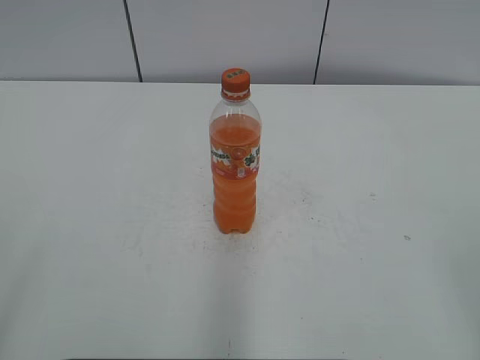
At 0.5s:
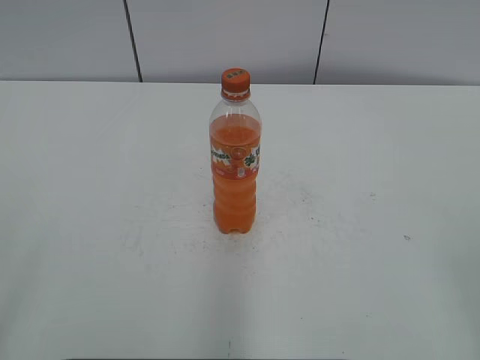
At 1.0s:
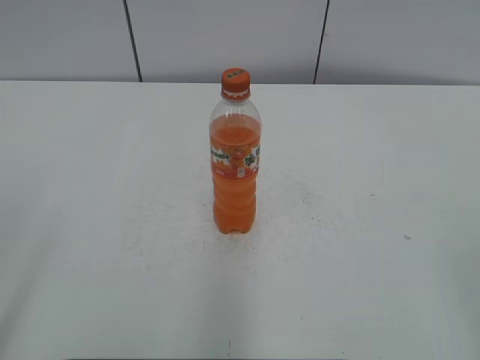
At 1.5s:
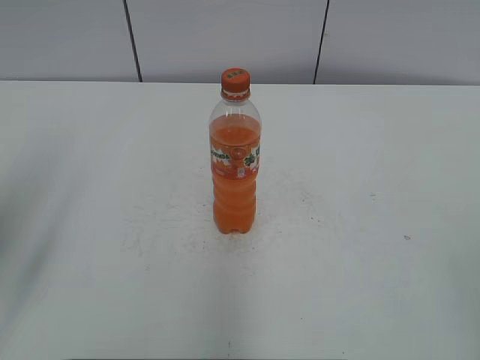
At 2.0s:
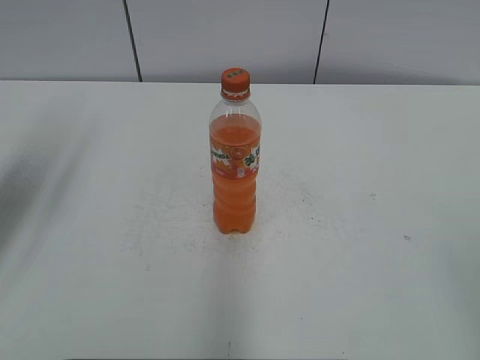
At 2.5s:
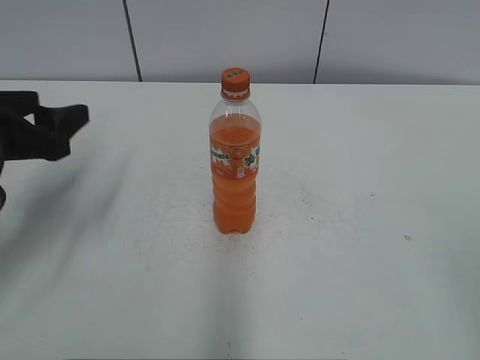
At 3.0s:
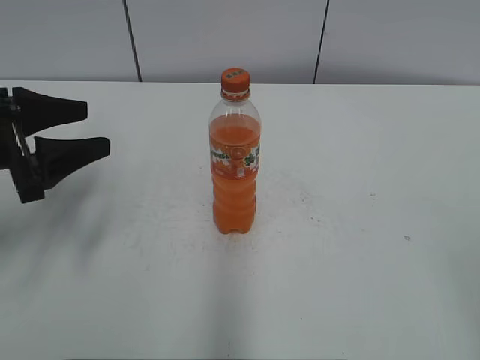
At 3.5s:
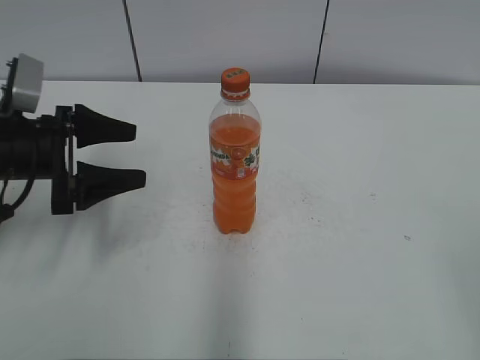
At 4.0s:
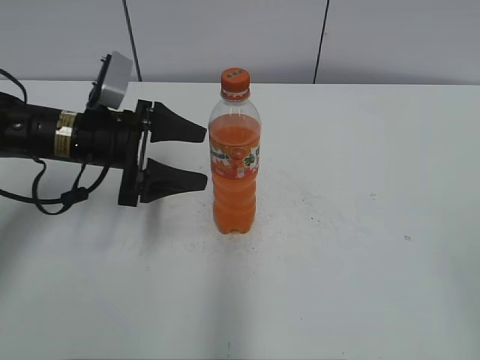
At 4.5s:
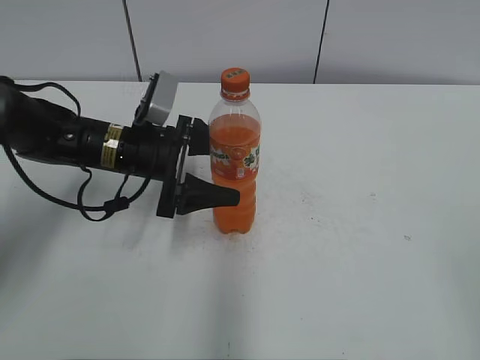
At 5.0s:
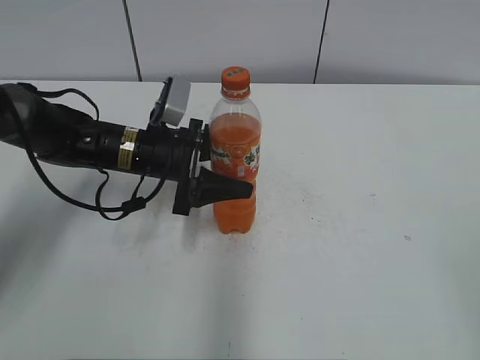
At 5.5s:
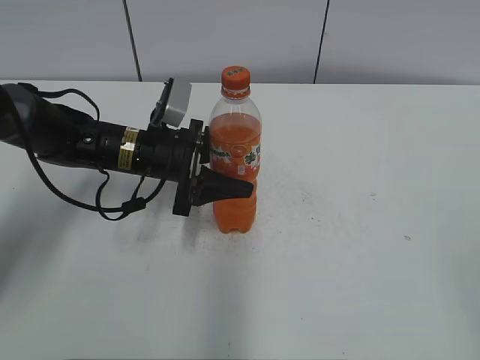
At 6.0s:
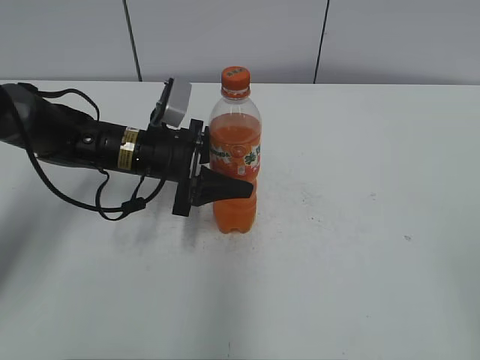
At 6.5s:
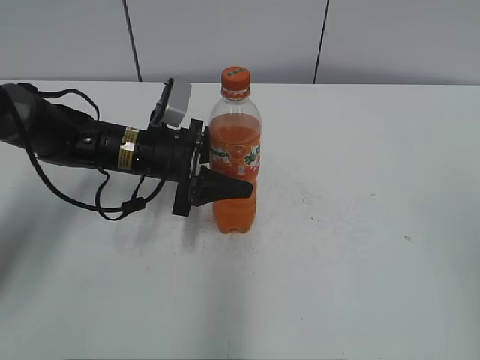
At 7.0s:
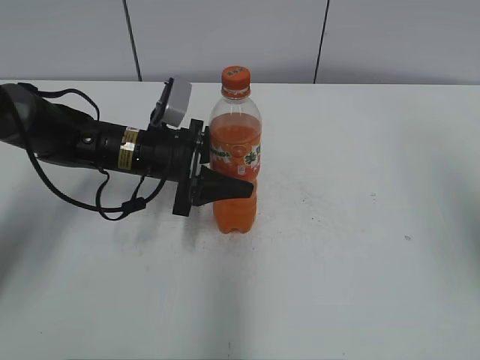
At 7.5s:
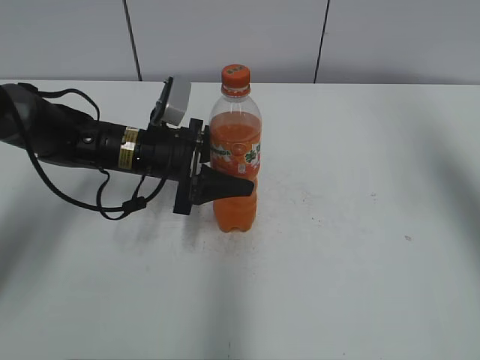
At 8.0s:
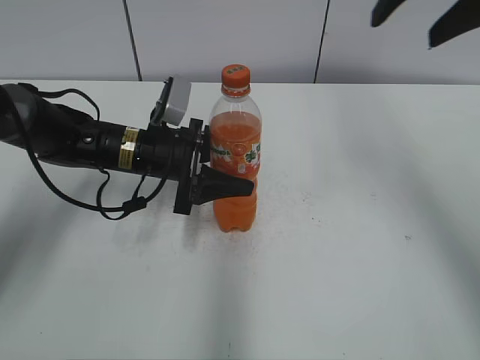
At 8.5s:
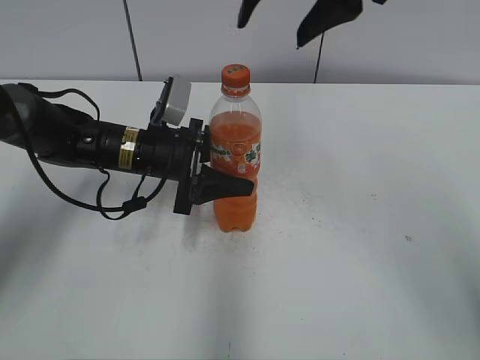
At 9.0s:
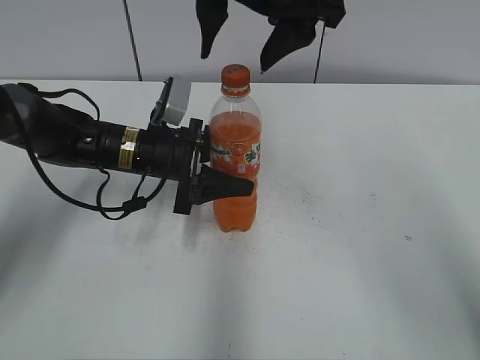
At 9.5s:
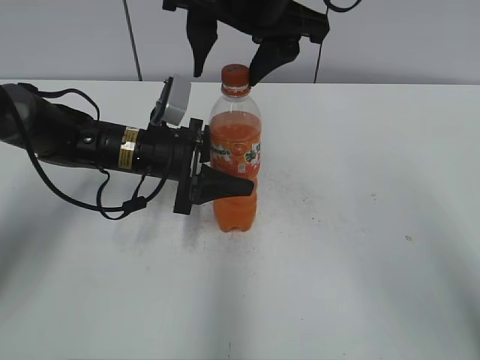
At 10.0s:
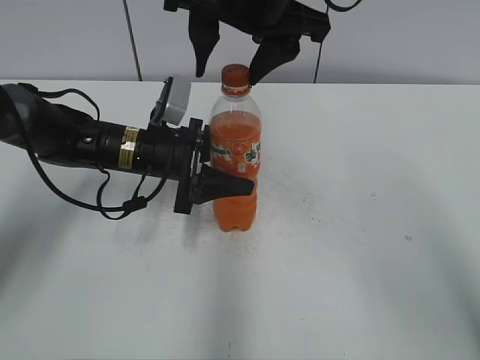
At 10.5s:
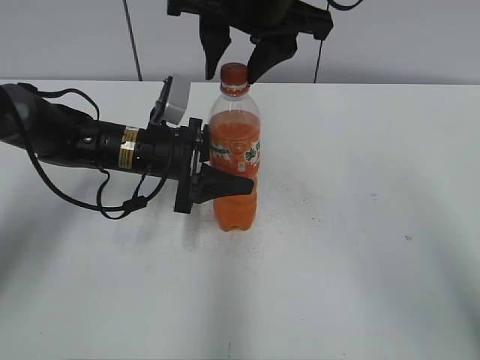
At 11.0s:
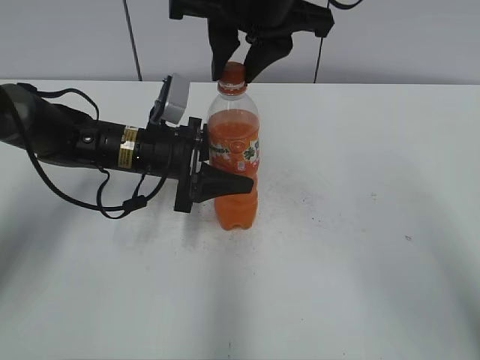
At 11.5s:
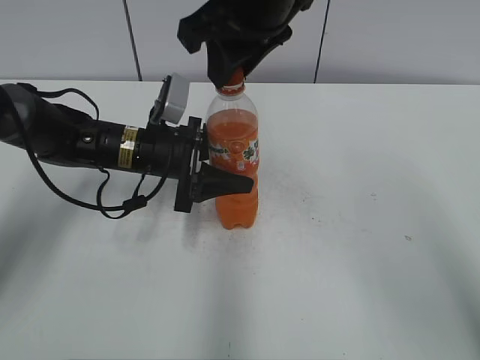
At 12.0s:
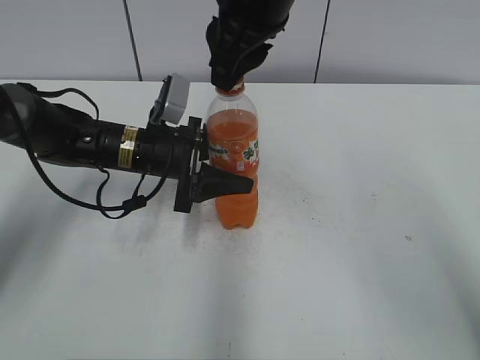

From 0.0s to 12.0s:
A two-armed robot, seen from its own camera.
Step, from 0.0s to 5.0s: Grab the Mirinda with the left hand.
From 2.0s to 4.0s: The left gripper shifts approximately 20 cm downward, to the right and forward, and opens.
From 4.0s to 6.0s: The left gripper moves to the right, roughly 5 cm, and closes.
From 6.0s to 8.0s: The right gripper shifts about 30 cm forward.
From 8.0s to 10.0s: The right gripper heads to the left, covering some 20 cm.
From 10.0s to 12.0s: The right gripper closes.

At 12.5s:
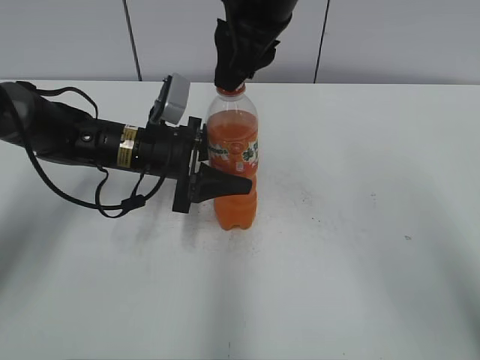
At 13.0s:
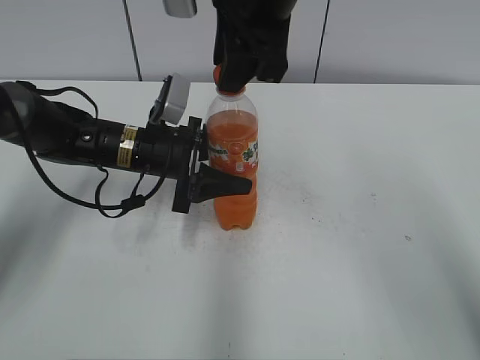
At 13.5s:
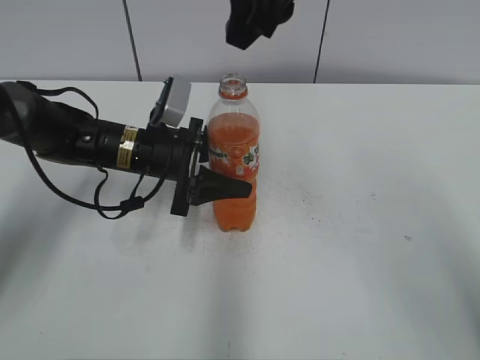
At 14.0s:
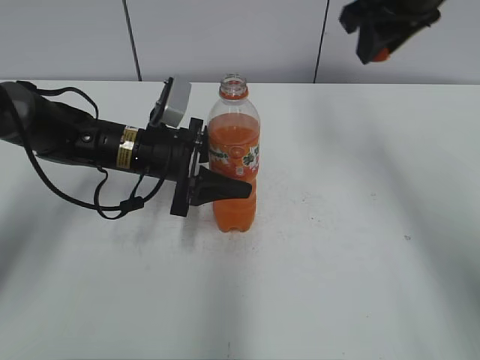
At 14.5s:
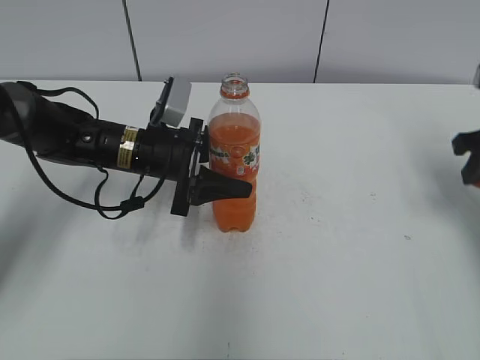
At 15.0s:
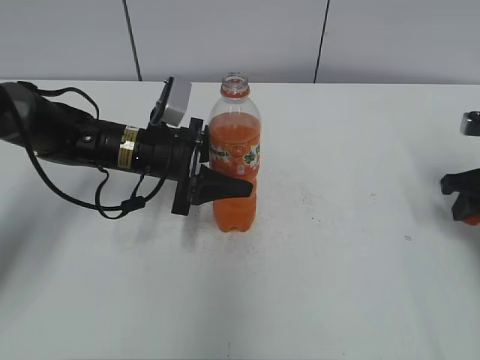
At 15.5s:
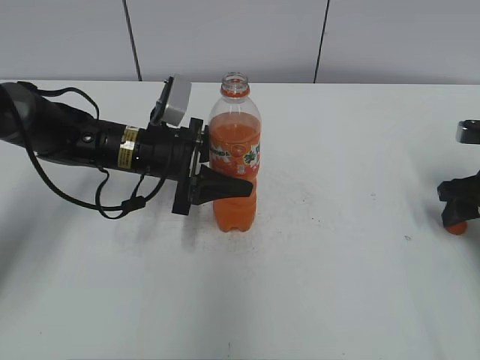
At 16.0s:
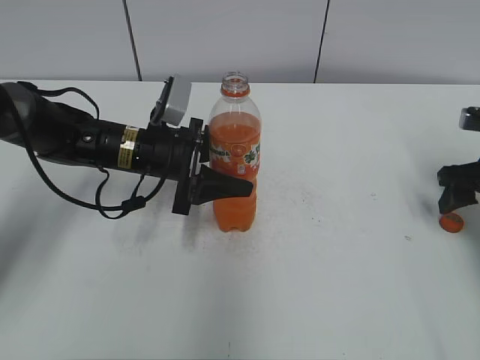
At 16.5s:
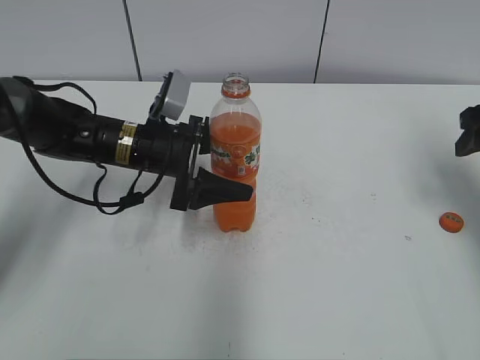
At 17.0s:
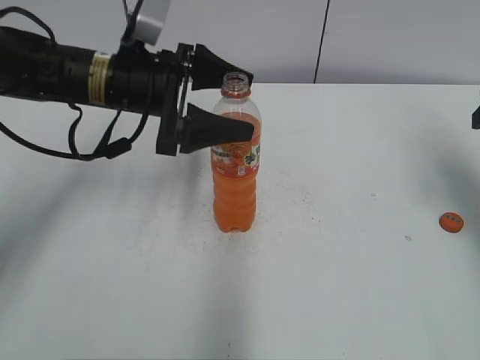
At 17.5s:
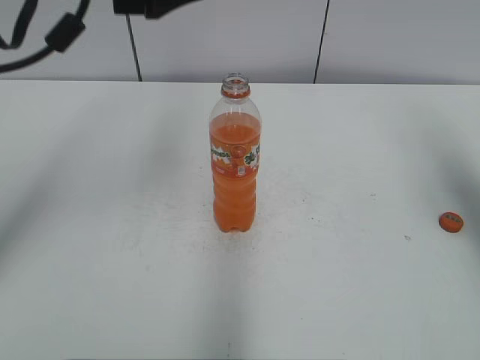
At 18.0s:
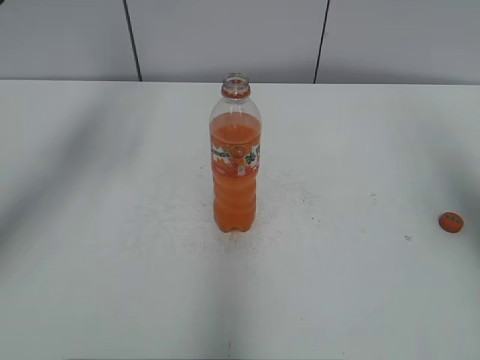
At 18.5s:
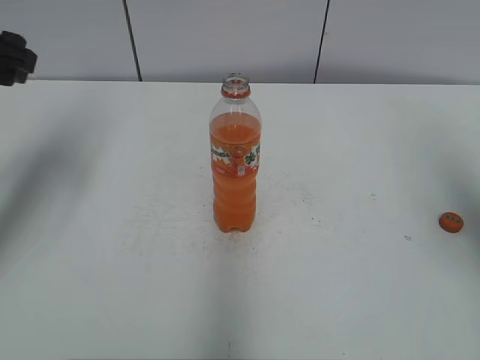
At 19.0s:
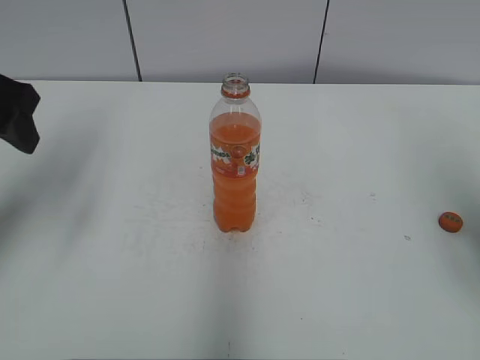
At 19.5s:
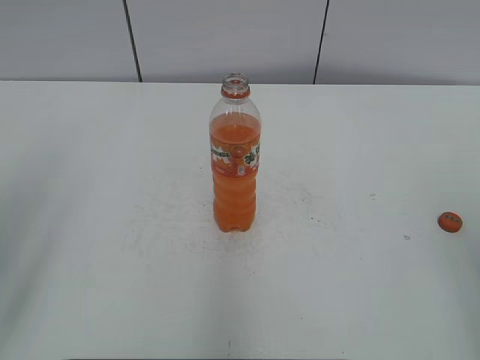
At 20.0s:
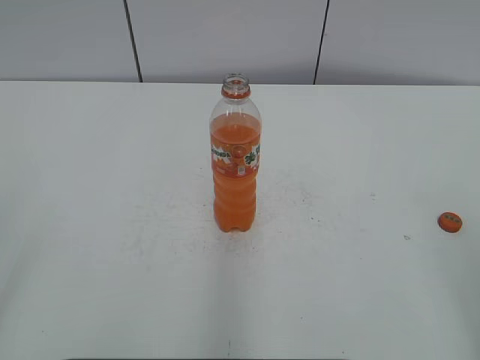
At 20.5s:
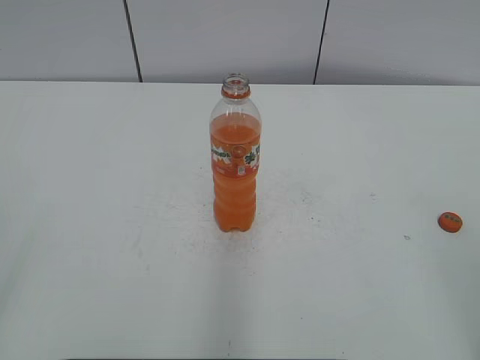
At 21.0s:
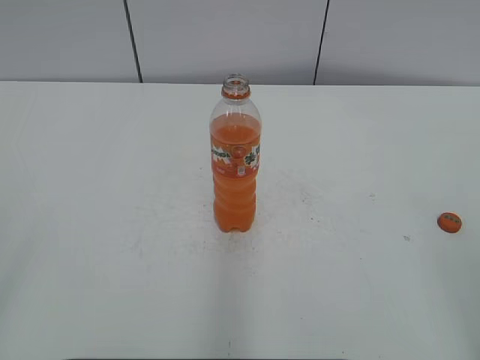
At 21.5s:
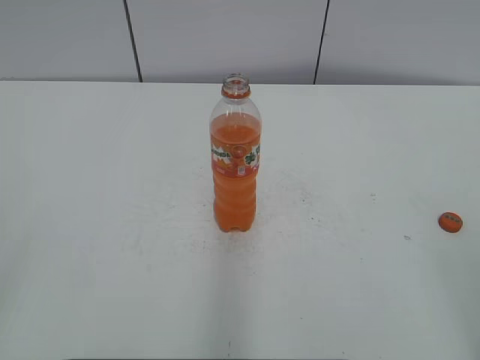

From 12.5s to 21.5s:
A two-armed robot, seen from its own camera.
Step, from 13.5s to 15.5s: Place the bottle cap on the right.
From 12.5s to 14.5s: The right gripper heads to the right and downward, covering roughly 30 cm.
From 14.5s to 17.0s: The right gripper goes downward and returns, about 10 cm each way, and opens up. The left gripper goes approximately 10 cm upward, and opens.
From 17.0s to 19.5s: The right gripper shifts approximately 20 cm backward; the left gripper shifts about 30 cm backward, to the left and upward.
From 19.5s to 21.5s: The left gripper travels backward by about 15 cm.

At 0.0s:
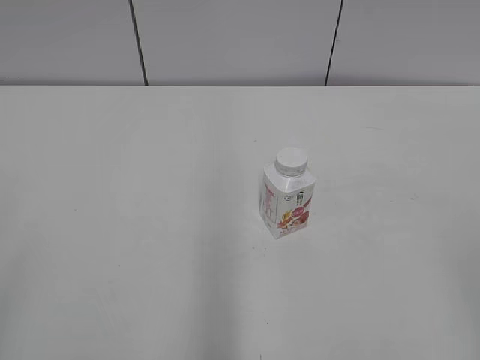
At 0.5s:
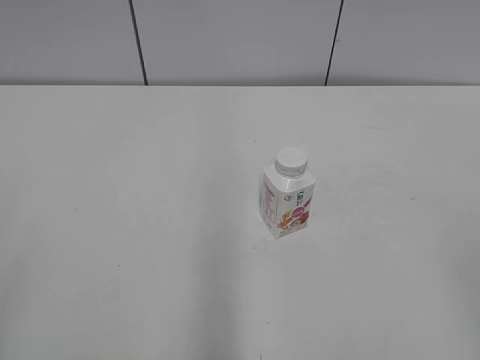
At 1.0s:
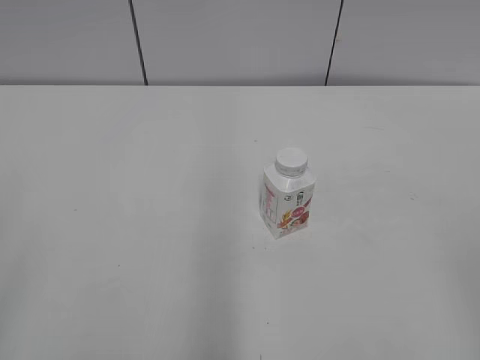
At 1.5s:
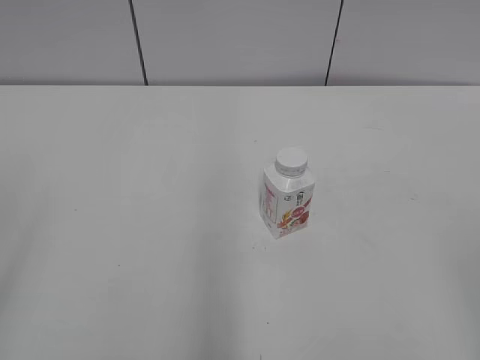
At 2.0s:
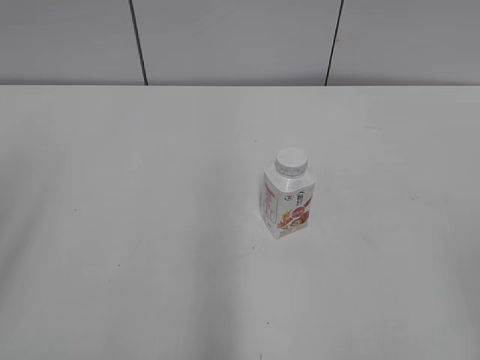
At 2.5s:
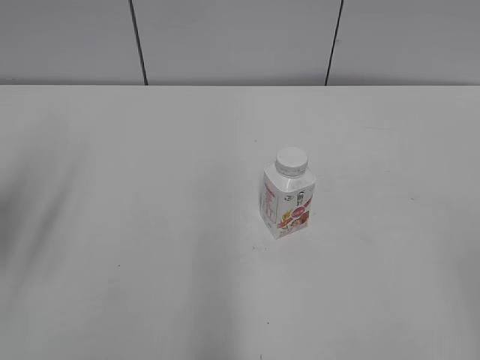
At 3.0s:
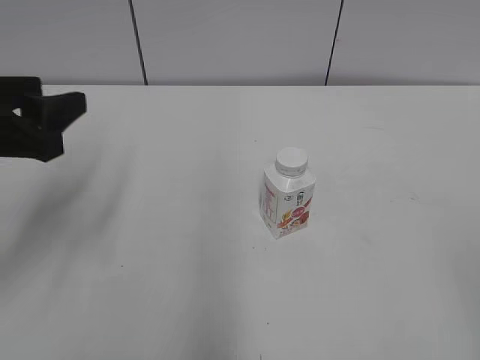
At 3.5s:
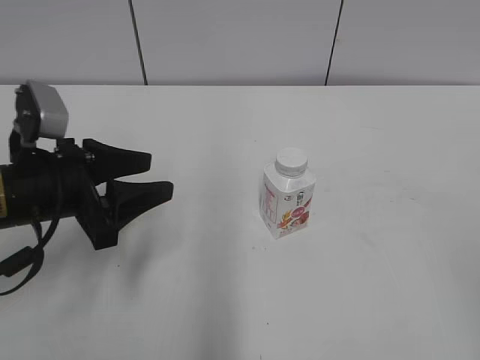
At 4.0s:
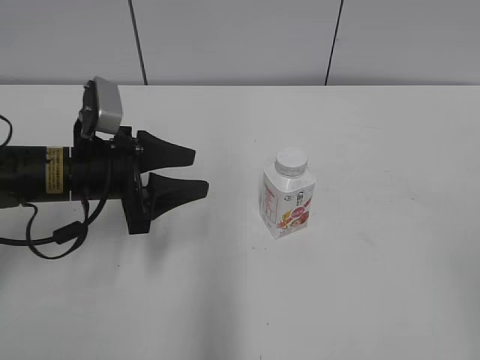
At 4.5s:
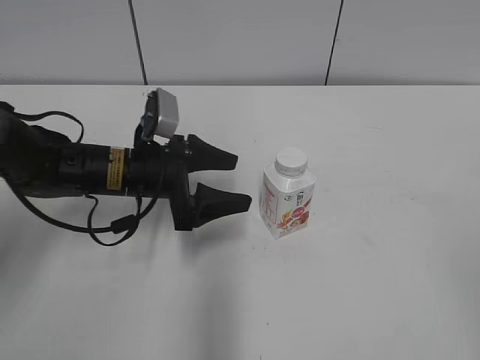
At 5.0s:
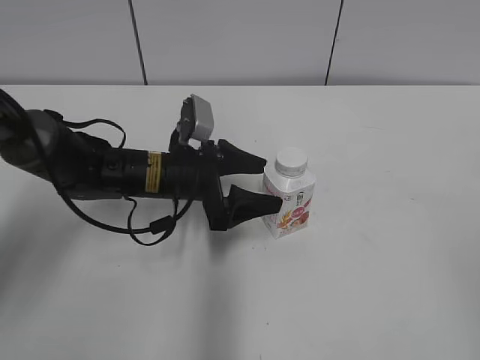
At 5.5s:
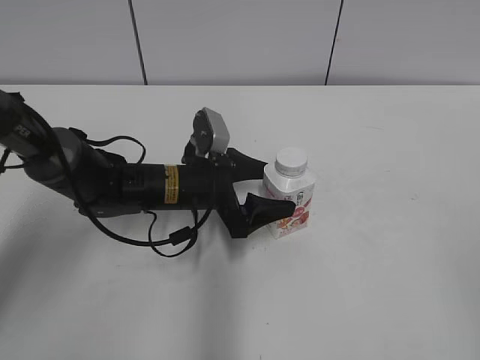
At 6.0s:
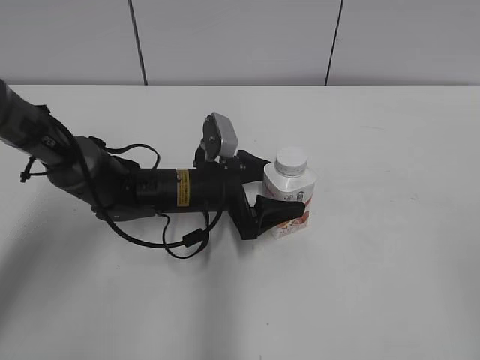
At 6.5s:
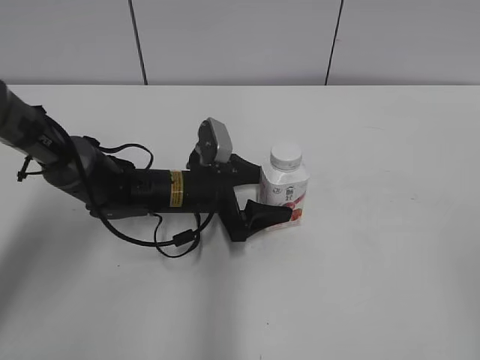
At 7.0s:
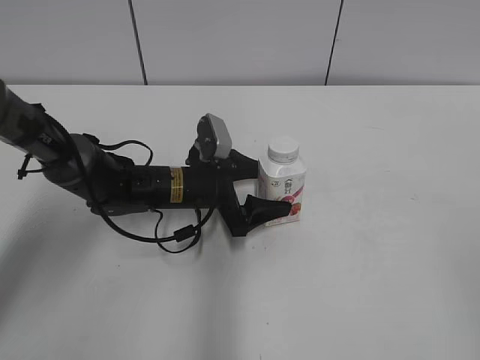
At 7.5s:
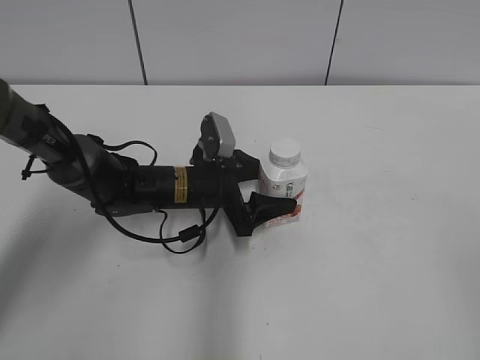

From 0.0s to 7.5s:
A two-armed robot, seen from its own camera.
From 2.0s to 4.0s: The left gripper is displaced downward, forward and to the right by approximately 30 cm.
From 4.0s to 5.5s: The left gripper shifts some 10 cm to the right and downward, and opens.
From 5.5s to 7.5s: There are only small adjustments of the grippers.
